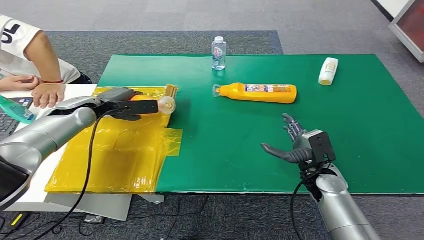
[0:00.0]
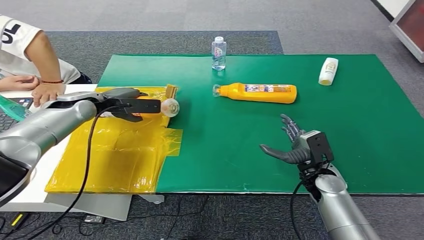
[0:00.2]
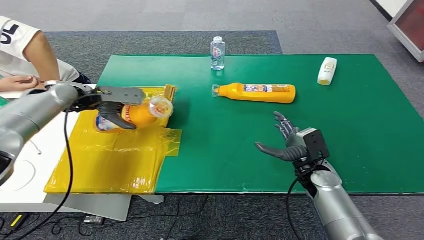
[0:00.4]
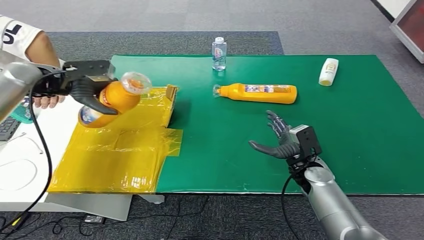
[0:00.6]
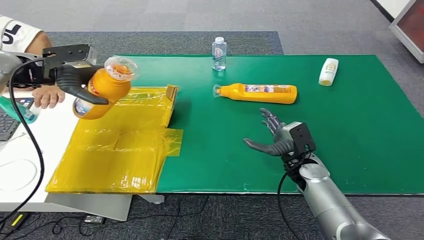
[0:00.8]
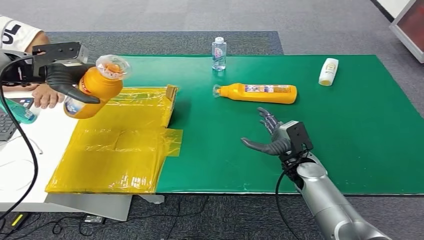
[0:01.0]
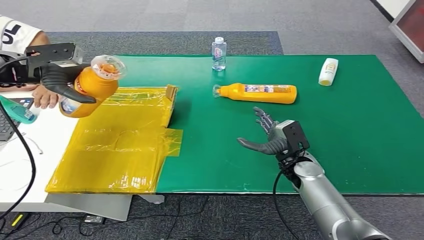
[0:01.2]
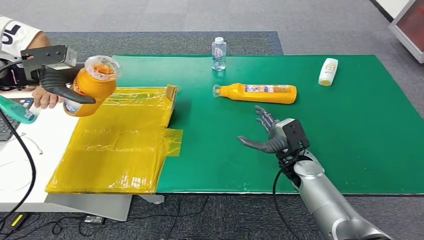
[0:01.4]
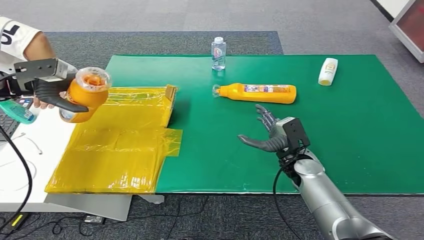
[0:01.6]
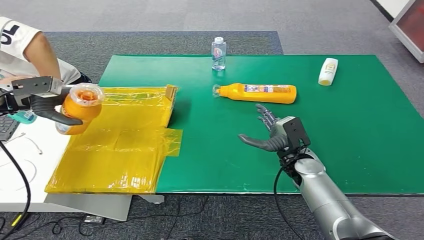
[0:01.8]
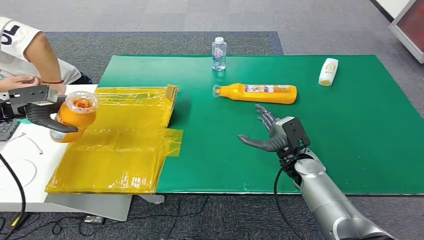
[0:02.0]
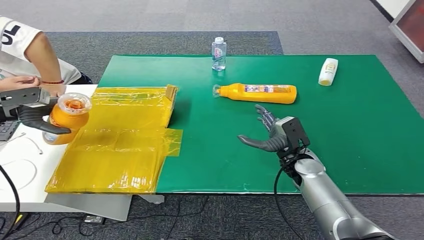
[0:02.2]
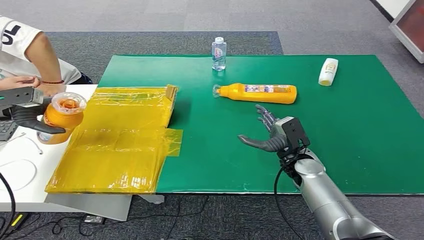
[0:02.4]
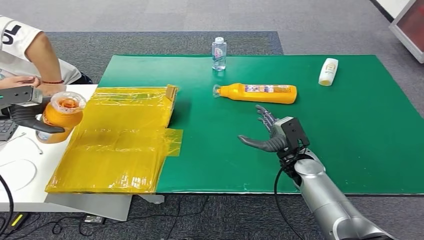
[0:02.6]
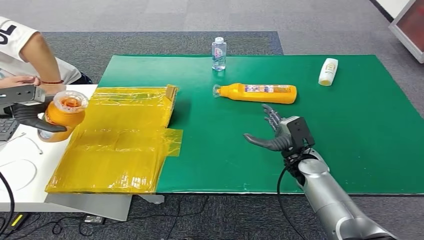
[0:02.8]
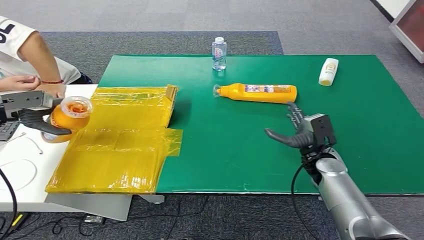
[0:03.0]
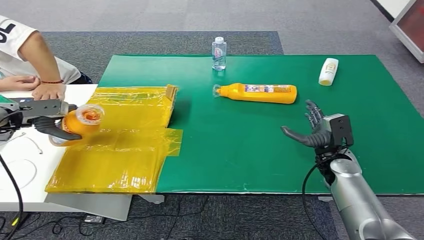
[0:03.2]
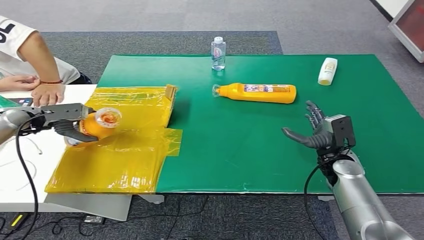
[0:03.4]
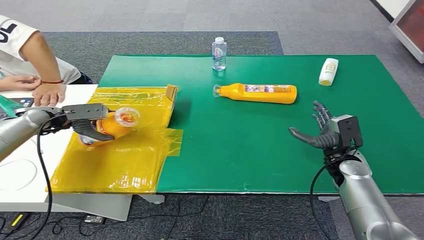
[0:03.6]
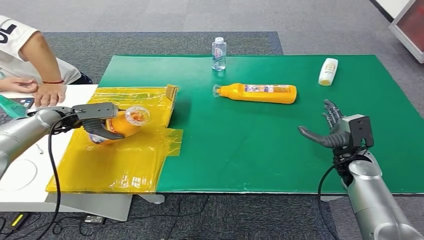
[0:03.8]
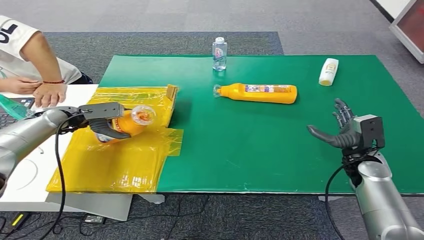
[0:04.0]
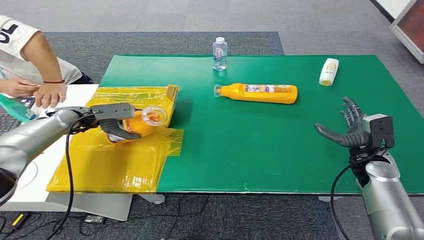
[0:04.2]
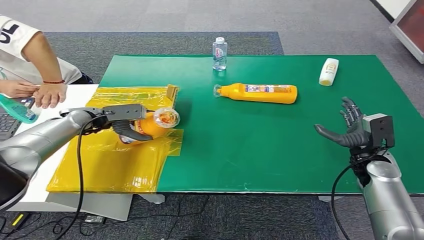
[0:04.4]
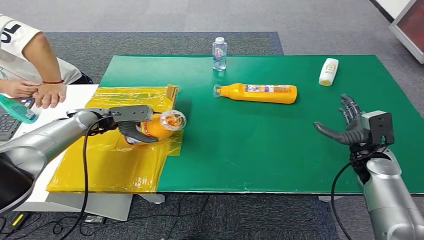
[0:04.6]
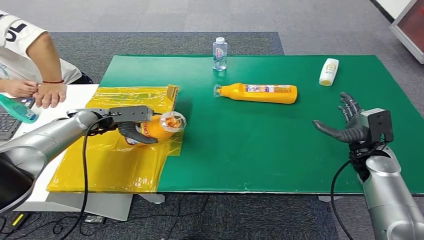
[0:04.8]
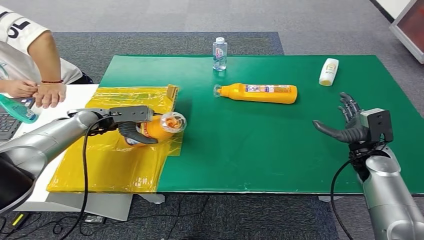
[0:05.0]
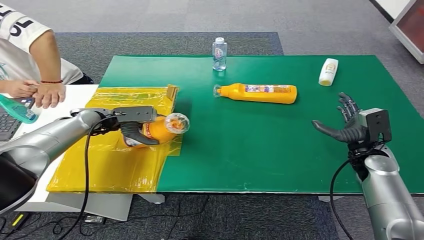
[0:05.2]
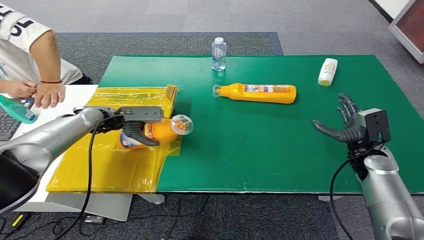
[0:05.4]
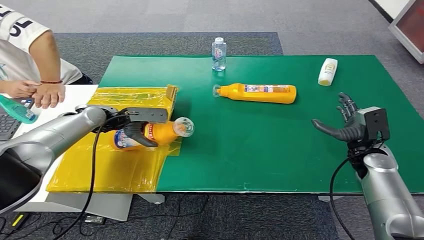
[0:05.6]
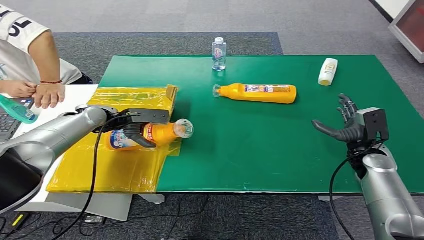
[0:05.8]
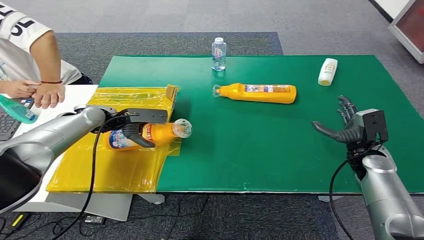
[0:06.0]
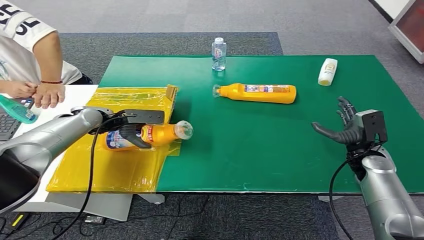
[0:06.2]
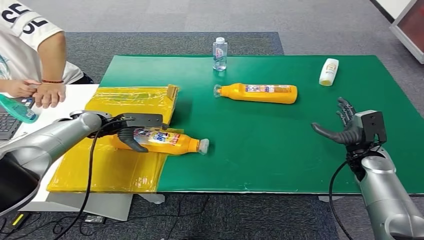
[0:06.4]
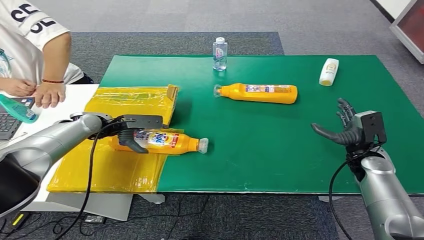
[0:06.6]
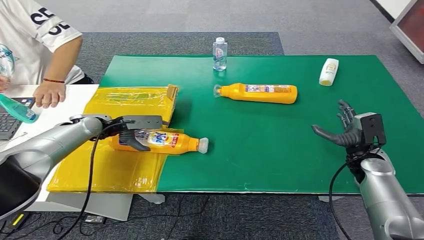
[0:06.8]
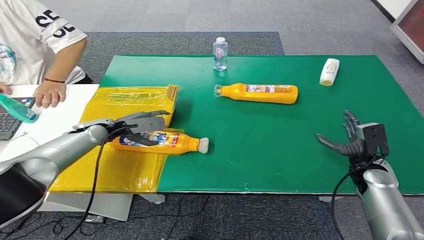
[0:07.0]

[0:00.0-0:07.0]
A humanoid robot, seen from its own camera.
Step, 0:00.0 to 0:07.0: Turn the bottle to the front side.
0:01.4 to 0:02.8: The left hand is displaced to the left and downward by about 15 cm.
0:04.2 to 0:05.6: The left hand is displaced to the right by about 5 cm.
